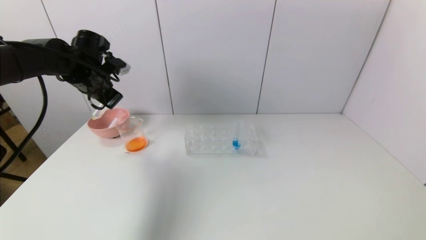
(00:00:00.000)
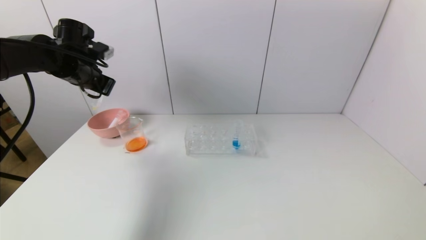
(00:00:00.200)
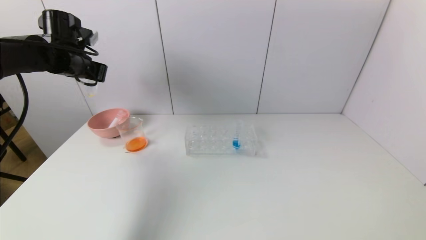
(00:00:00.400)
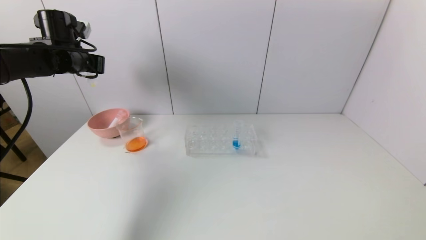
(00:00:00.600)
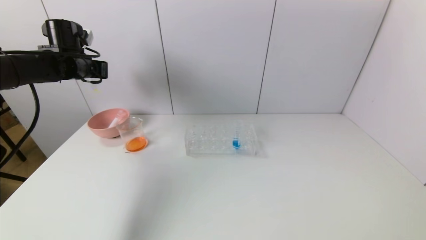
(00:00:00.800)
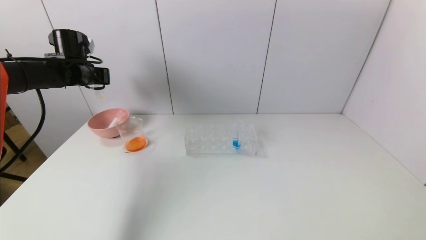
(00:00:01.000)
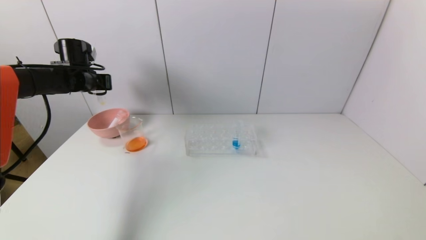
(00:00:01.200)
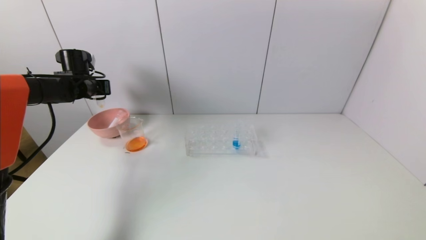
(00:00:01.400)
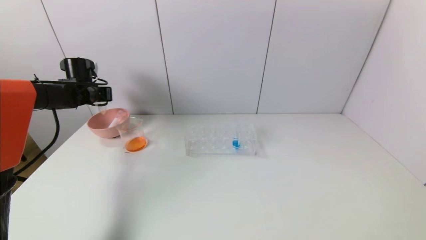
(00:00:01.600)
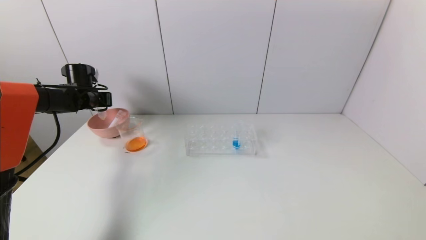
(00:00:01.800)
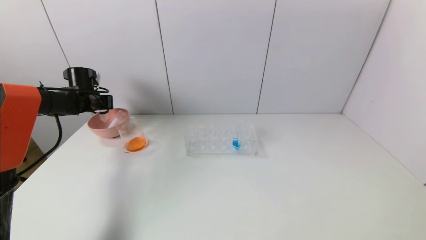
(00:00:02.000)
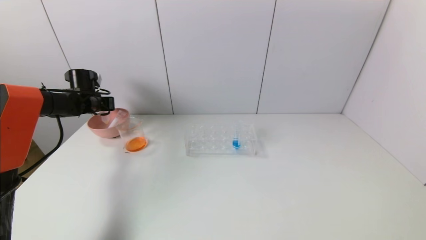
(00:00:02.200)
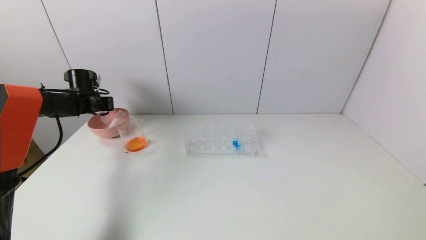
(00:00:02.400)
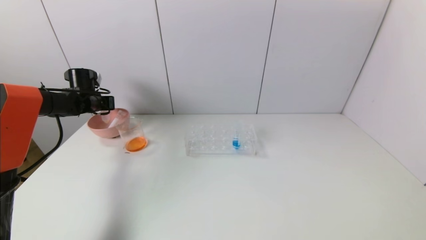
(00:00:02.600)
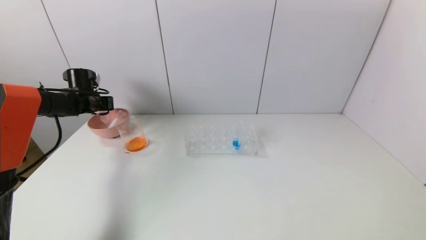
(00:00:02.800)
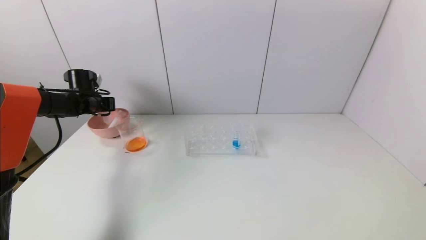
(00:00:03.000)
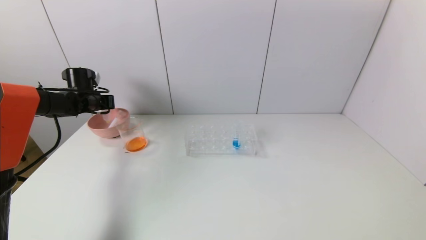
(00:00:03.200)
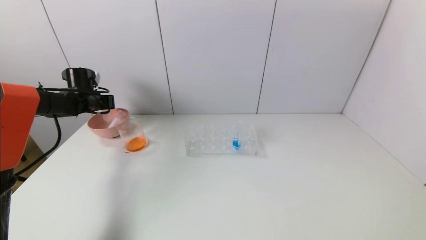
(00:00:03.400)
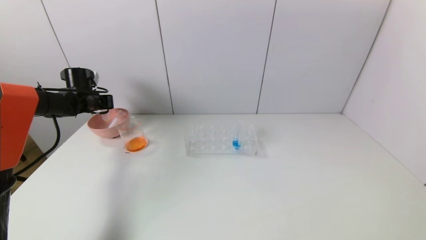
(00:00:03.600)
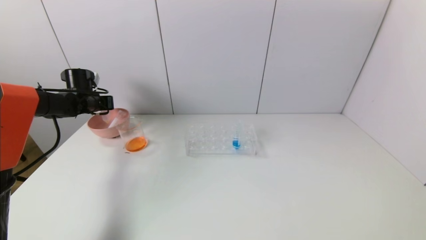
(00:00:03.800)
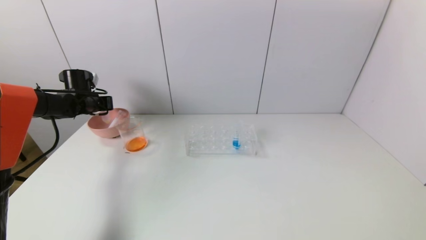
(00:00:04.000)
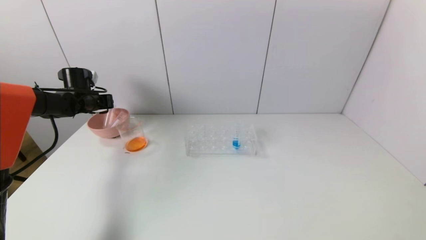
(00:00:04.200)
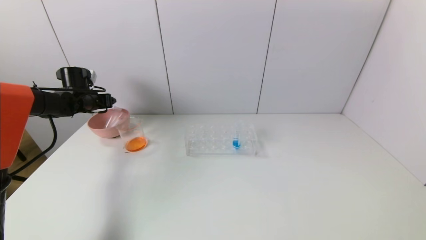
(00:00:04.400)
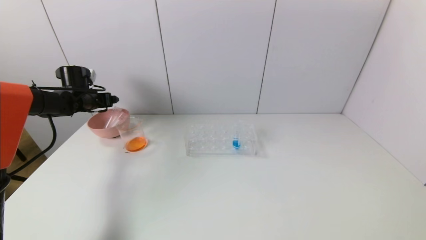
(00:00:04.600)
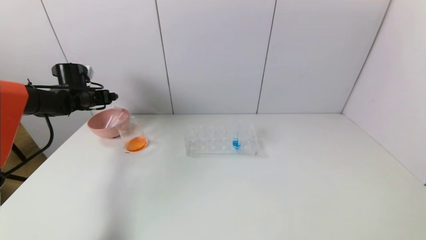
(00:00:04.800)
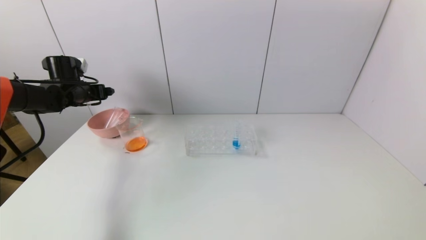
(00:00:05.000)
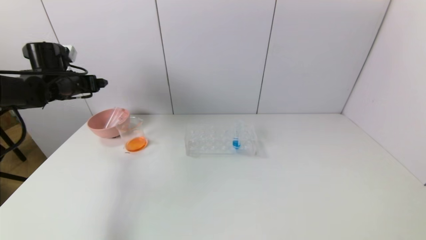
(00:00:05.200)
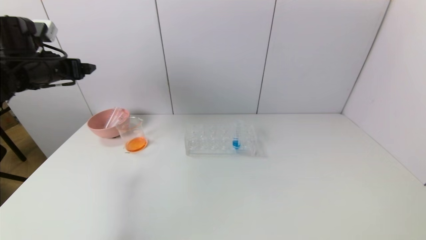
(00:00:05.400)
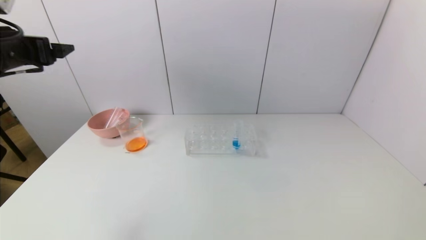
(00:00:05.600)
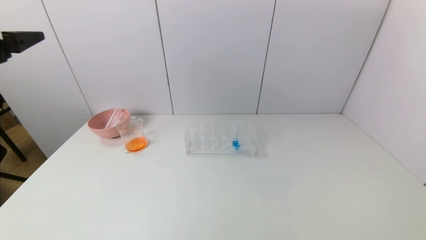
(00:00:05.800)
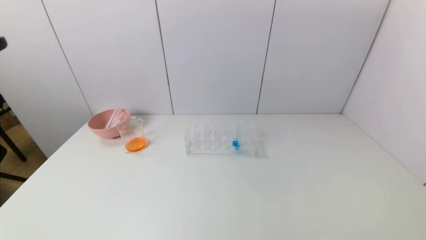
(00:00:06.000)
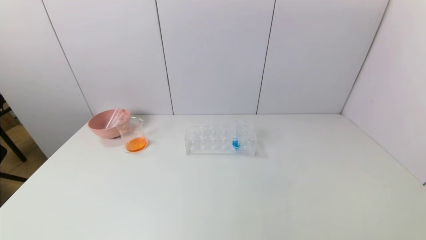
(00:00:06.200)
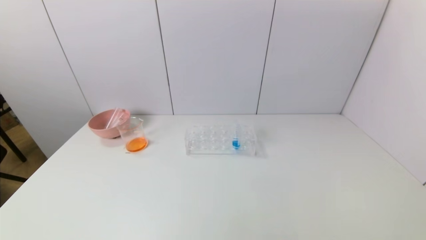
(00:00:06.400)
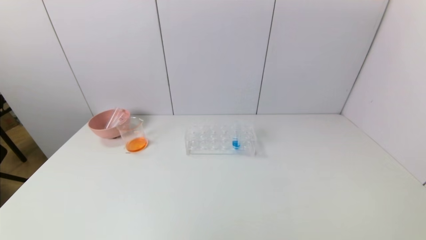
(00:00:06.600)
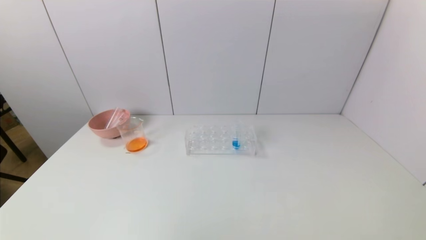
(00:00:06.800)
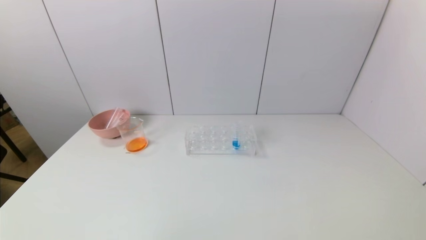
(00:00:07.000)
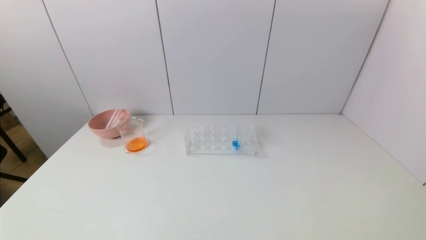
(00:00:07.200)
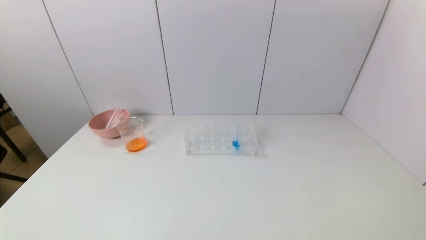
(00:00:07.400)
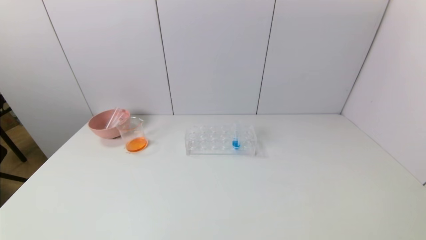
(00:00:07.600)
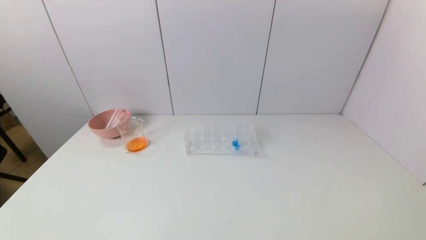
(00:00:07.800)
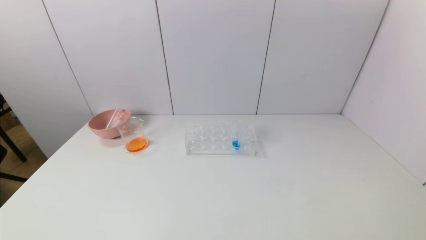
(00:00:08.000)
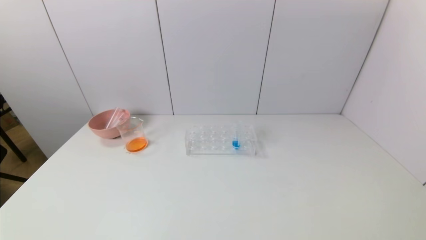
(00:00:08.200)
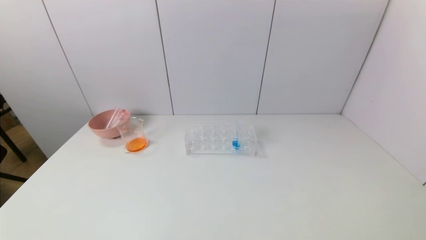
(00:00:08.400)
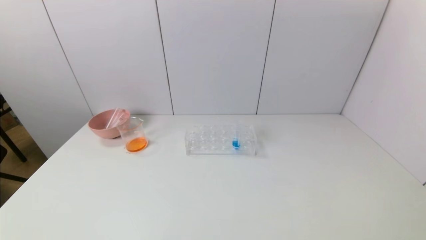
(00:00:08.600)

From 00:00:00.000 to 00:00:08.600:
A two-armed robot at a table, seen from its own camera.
Task of the whole recording: pick up the test tube with yellow pigment and the test tube with red pigment by grippers and pour them into the beaker.
Step, from 00:00:00.000 to 00:00:04.200: Place the test tube into the pink bowl with the left gripper.
From 00:00:00.000 to 00:00:01.400: The left gripper is displaced to the left and forward by roughly 10 cm.
From 00:00:01.400 to 00:00:02.800: The left gripper is displaced downward by about 5 cm.
From 00:00:02.800 to 00:00:04.400: The left gripper opens up.
From 00:00:04.400 to 00:00:05.800: The left gripper heads backward and upward, covering roughly 35 cm.
From 00:00:05.800 to 00:00:07.200: The left gripper shifts approximately 35 cm downward and backward.
